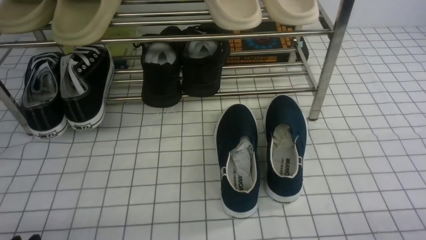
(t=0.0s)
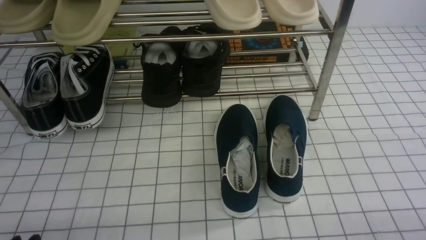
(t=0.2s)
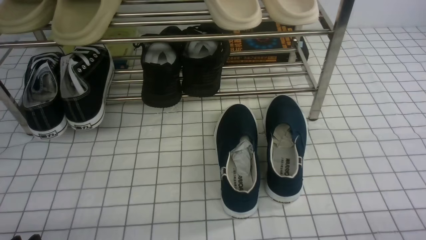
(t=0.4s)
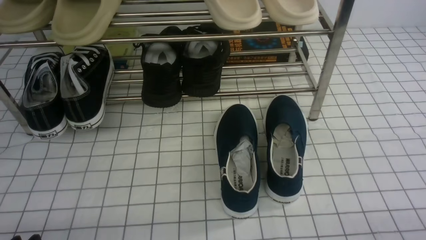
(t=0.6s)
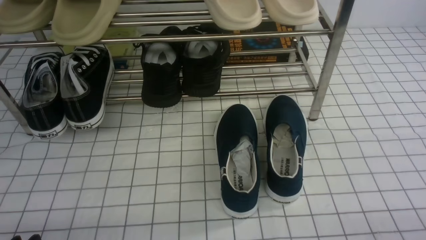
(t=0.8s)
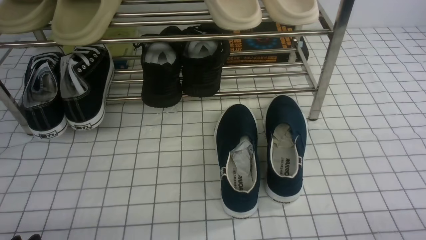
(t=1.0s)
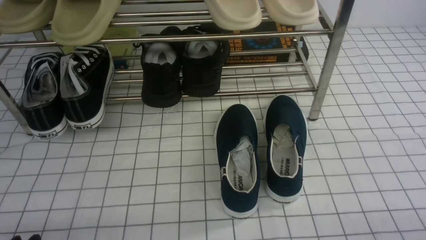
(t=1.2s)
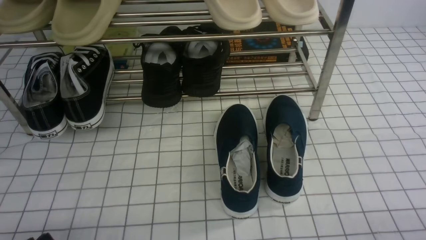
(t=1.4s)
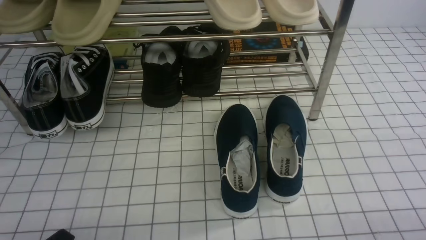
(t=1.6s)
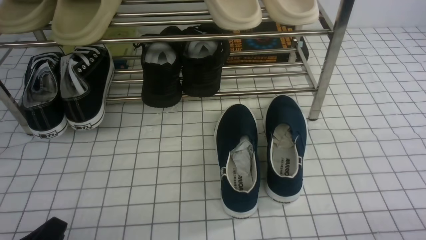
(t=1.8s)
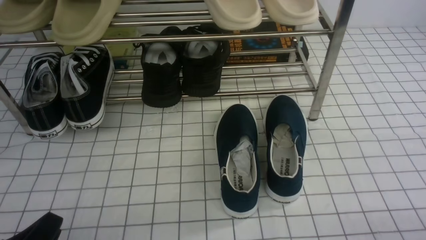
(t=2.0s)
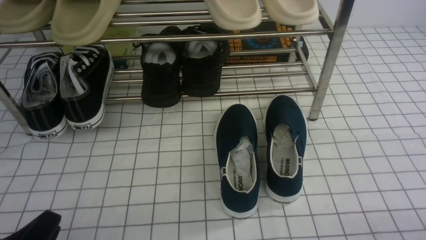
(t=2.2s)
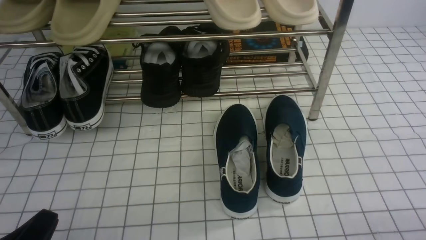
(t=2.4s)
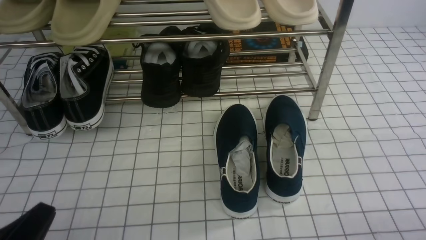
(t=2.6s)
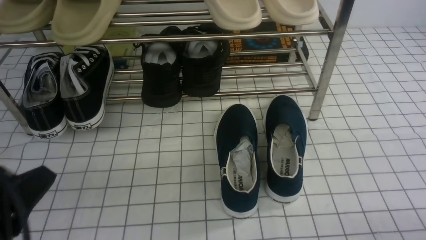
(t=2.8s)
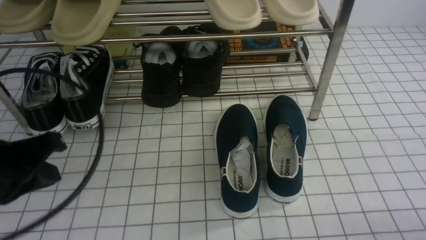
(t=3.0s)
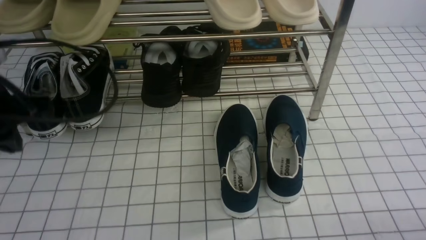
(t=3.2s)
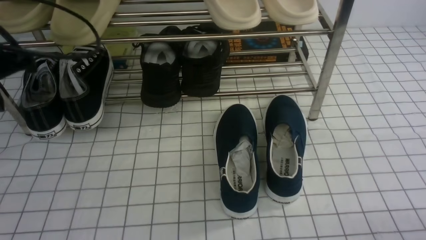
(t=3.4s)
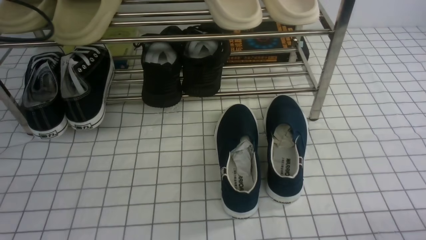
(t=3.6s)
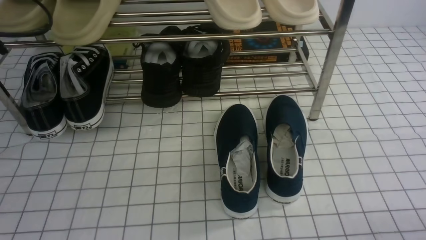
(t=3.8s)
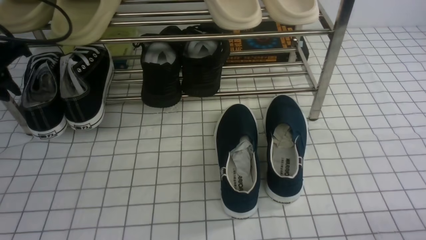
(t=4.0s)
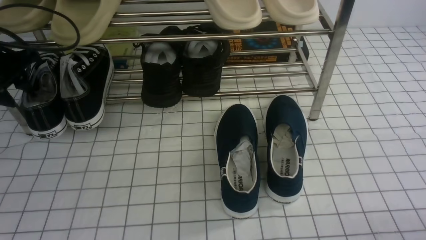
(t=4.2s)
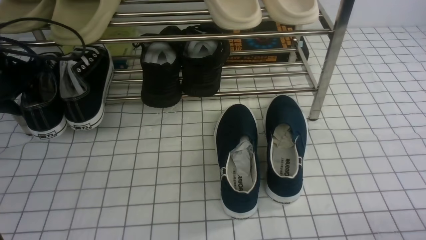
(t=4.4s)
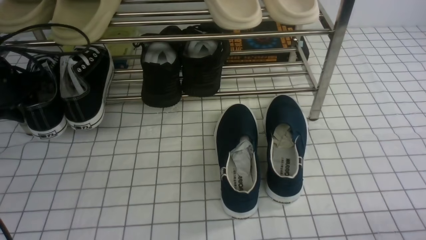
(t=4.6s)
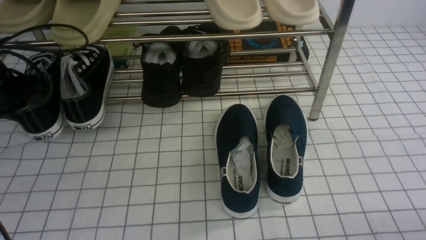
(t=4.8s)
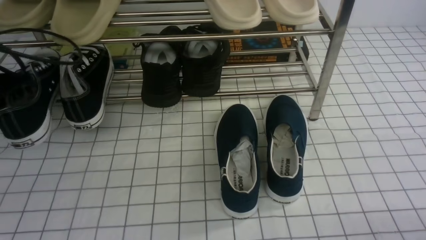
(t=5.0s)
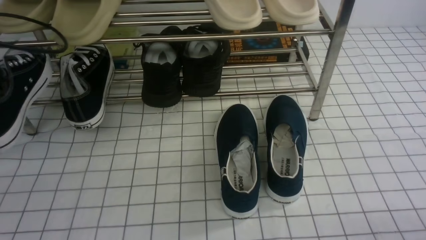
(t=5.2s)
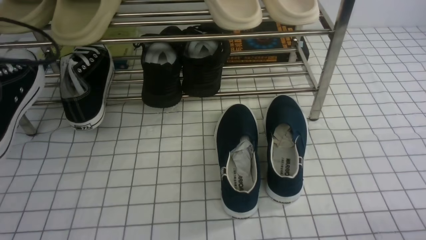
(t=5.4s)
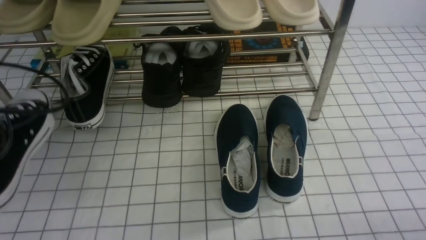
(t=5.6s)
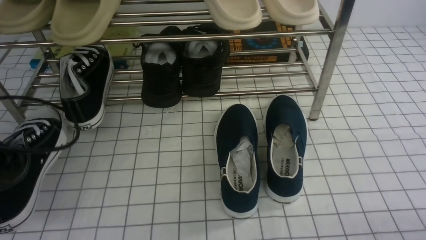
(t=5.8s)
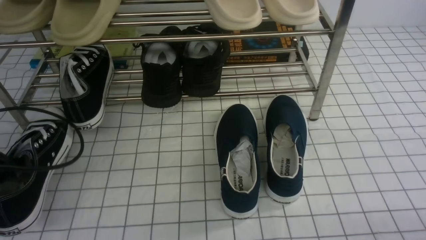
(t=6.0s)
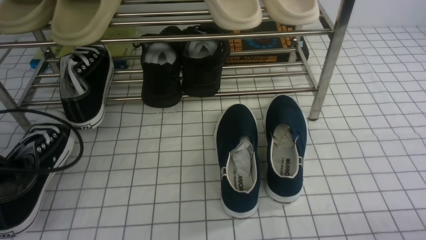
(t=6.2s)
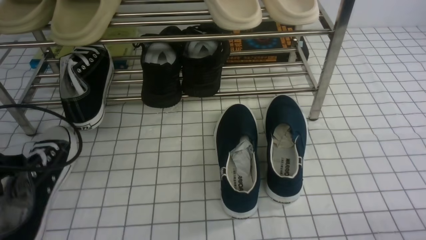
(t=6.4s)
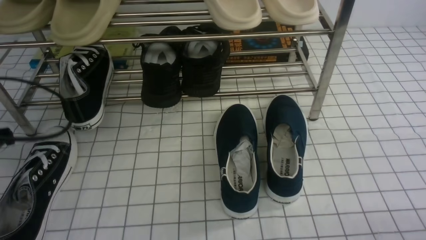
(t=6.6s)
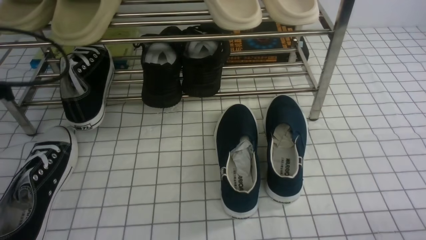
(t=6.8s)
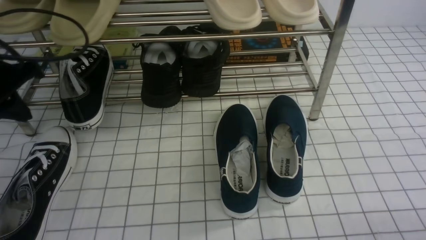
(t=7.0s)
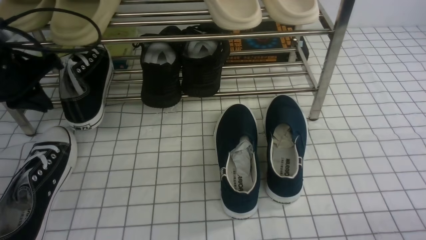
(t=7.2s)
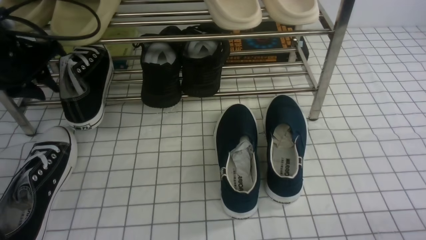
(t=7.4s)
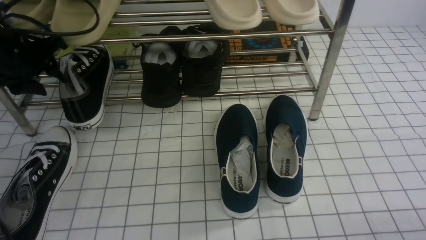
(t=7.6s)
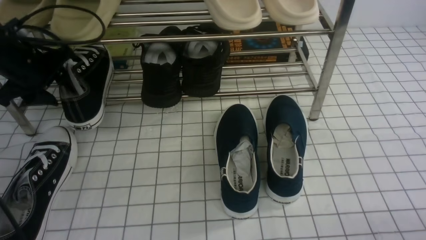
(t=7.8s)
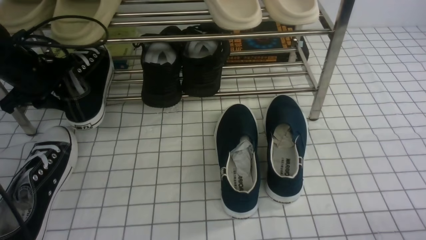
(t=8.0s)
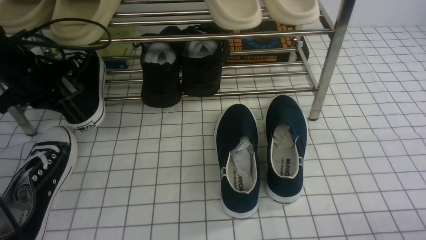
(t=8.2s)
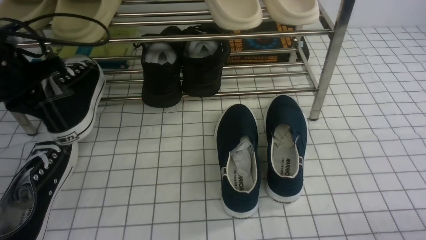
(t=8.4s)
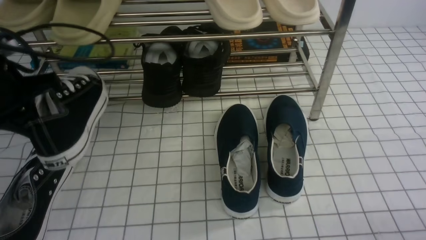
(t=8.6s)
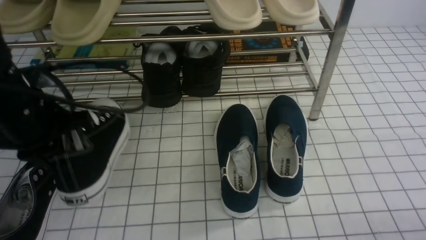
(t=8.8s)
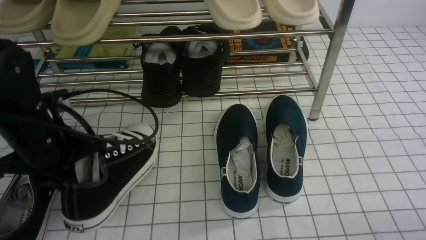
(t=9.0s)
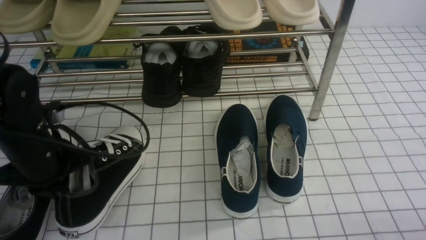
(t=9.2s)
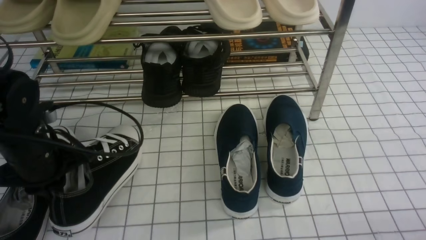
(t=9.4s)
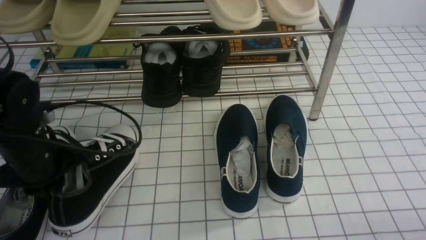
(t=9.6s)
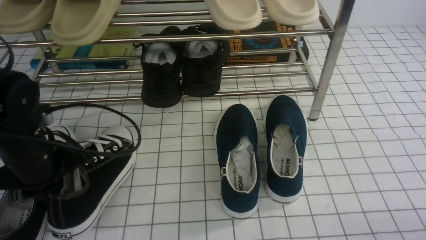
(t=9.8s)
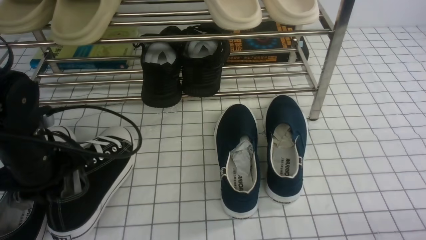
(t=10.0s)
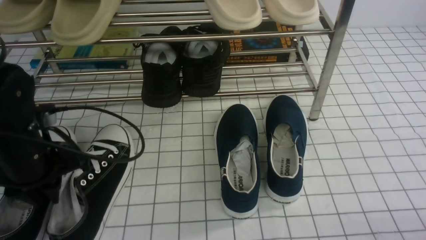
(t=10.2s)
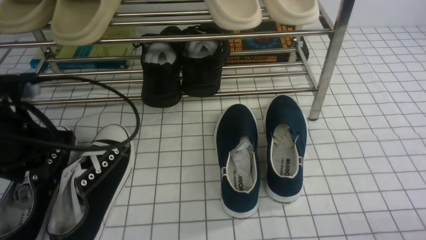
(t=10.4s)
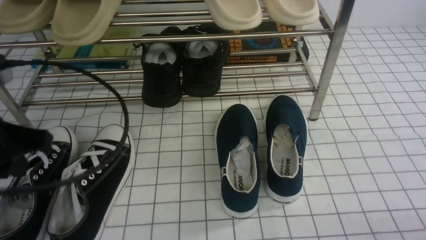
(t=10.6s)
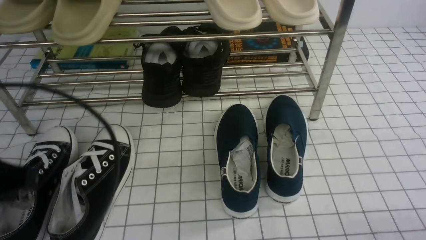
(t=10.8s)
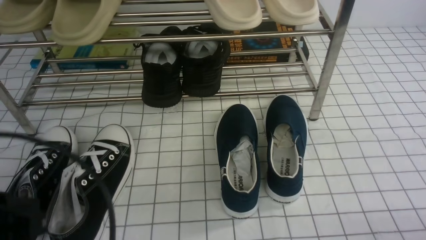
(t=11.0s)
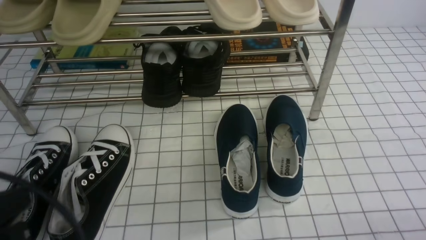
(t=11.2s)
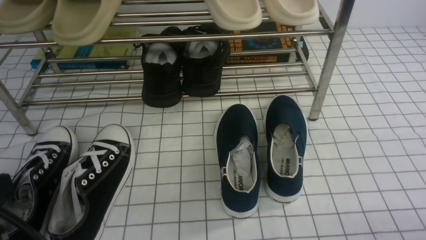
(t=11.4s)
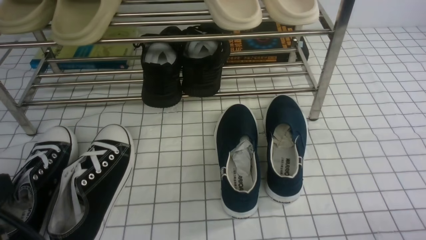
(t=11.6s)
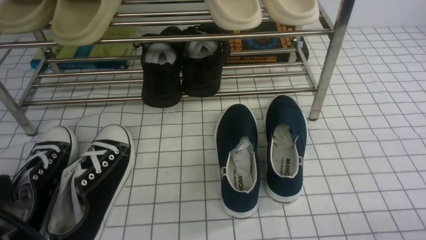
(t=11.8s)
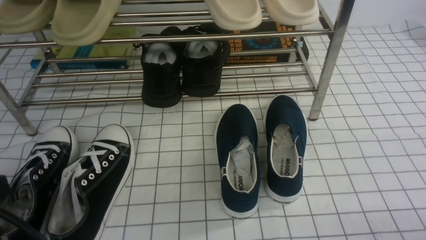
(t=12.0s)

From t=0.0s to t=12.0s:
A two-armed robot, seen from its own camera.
Step, from t=0.0s to t=4.6s: use the left arm to clamp a shoe on the left side of the shoe rack.
Step, from t=4.8s to t=6.4s: Use your left arm to remove the clamped shoe from the shoe rack and put it down.
Step, from t=6.6s to t=8.0s: use the left arm to clamp a shoe on the left side of the shoe rack.
Step, from t=8.2s to t=10.2s: Use your left arm to remove the clamped shoe from the shoe rack and put it down.
From t=1.6s to t=3.0s: The left gripper moves upward and forward, approximately 20 cm, and closes.
From t=3.0s to t=4.4s: The left gripper is displaced forward and to the left by some 25 cm, and opens its fingers.
From t=4.4s to t=6.0s: The left gripper heads backward, covering roughly 15 cm, and closes its fingers.
From t=6.0s to t=7.6s: The left gripper moves forward, roughly 15 cm, and opens its fingers.
From t=7.6s to t=9.0s: The left gripper shifts roughly 15 cm backward and to the right, and closes its fingers.
From t=9.0s to t=10.4s: The left gripper ends up roughly 5 cm from where it was, and opens.
From t=10.4s to t=12.0s: The left gripper goes approximately 15 cm backward, and closes up.

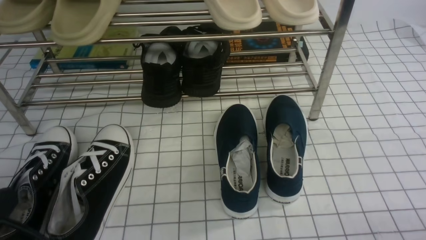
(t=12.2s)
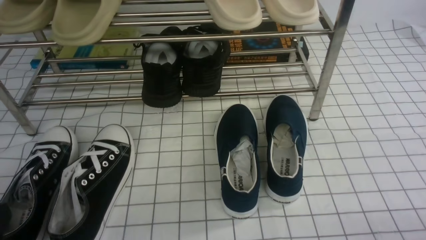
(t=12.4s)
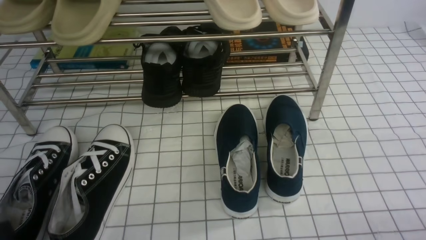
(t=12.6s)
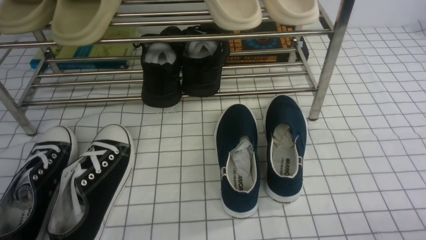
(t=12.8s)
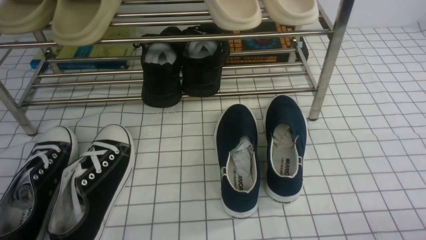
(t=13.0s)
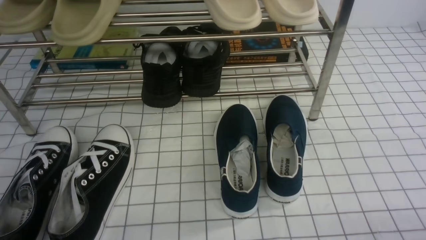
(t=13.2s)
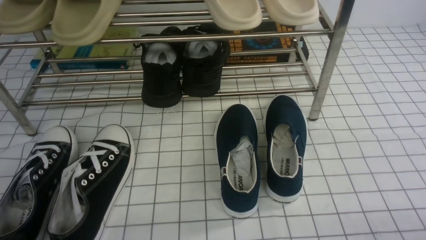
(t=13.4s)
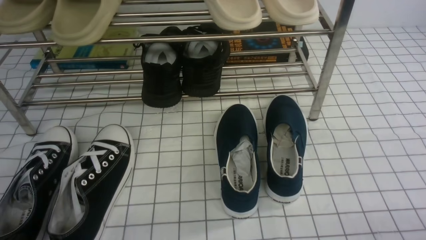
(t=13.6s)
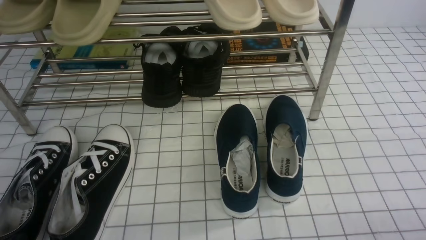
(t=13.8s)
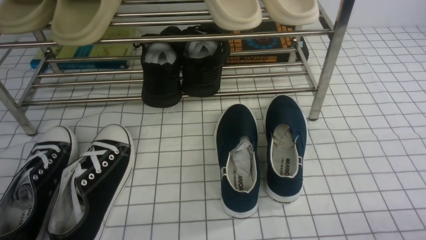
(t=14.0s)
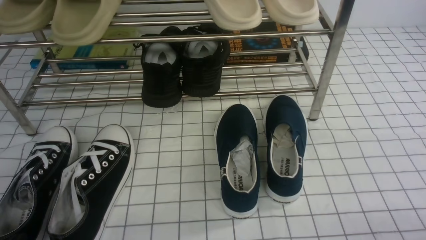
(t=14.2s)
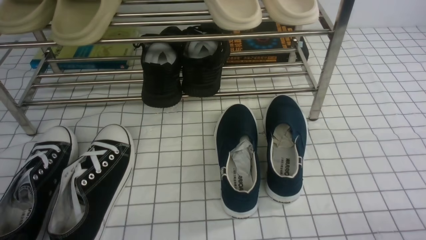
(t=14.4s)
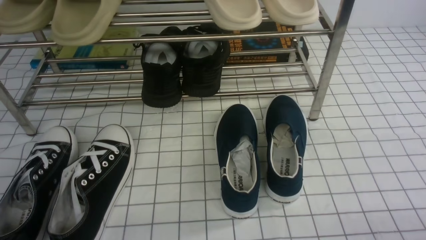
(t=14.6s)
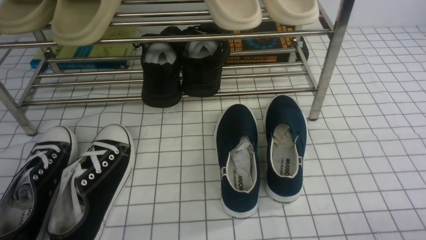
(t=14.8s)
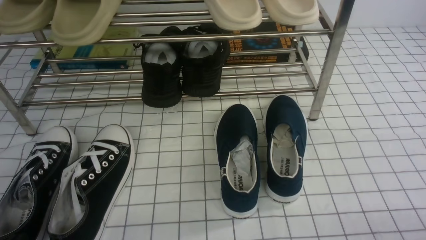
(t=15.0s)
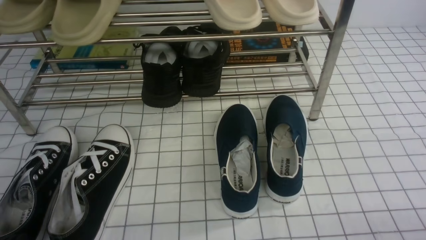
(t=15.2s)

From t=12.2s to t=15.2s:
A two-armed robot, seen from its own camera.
From t=12.2s to t=13.8s: The left gripper travels downward by roughly 10 cm.
From t=13.8s to t=15.2s: Both grippers stay put.

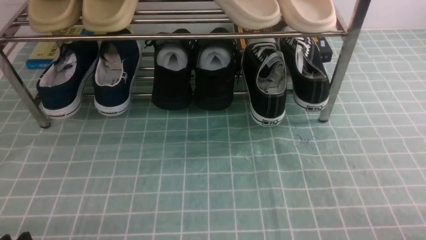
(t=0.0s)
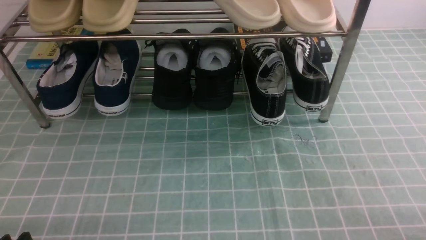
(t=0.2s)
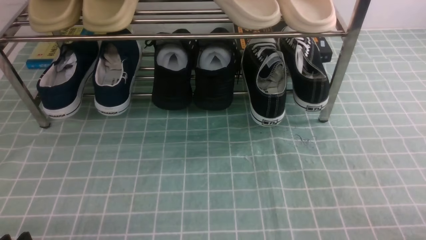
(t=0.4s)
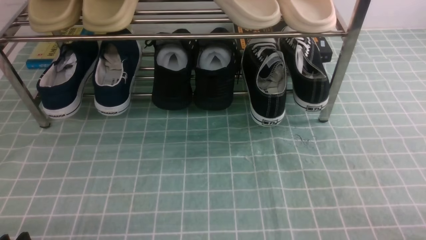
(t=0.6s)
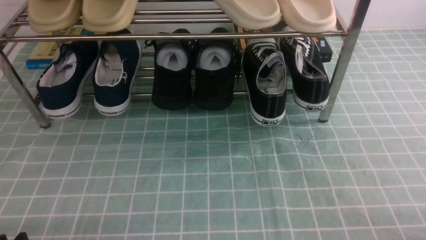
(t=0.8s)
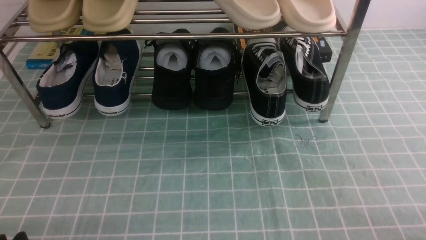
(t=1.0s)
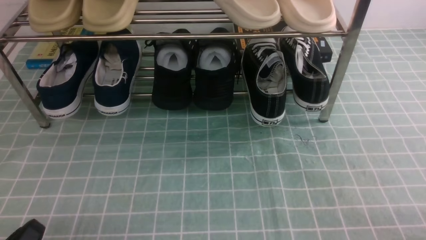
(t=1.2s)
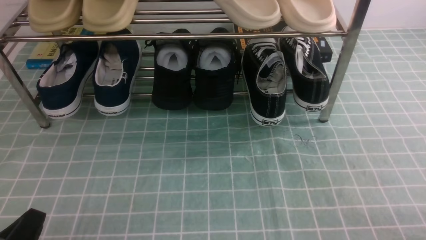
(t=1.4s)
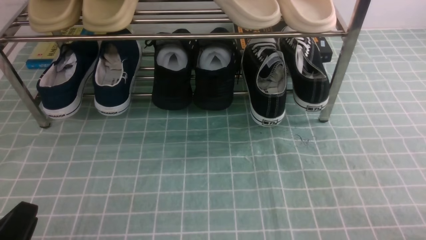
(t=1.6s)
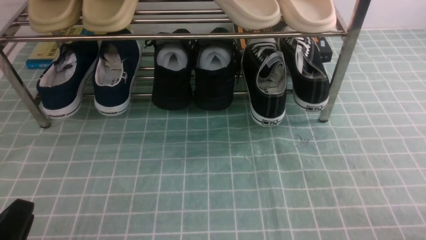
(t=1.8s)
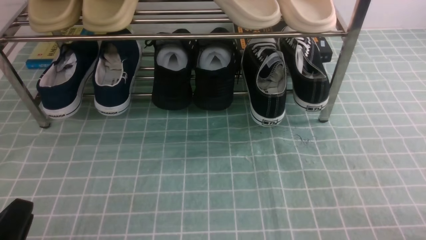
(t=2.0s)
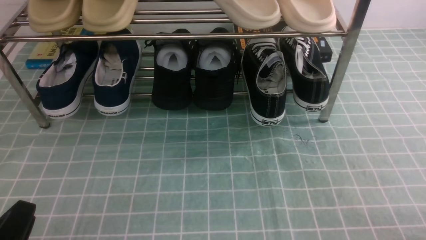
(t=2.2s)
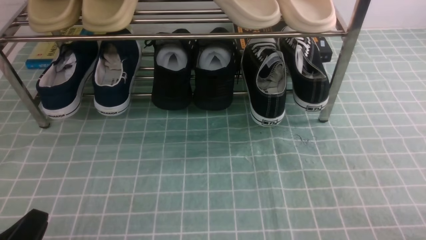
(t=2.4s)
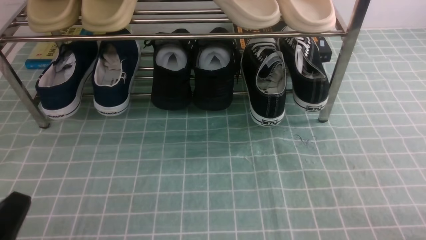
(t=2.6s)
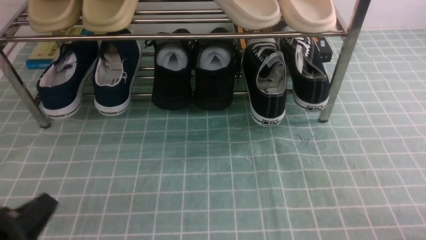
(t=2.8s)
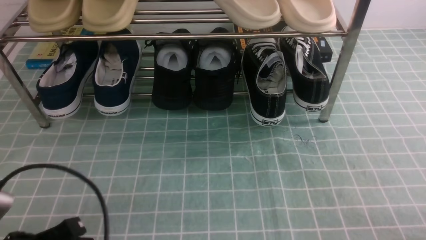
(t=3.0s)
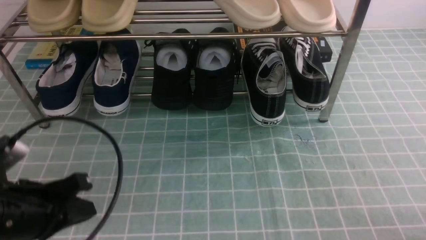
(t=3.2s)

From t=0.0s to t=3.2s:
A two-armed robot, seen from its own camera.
From t=1.6s to t=3.2s: The left gripper shifts approximately 10 cm forward and upward, and closes up.
